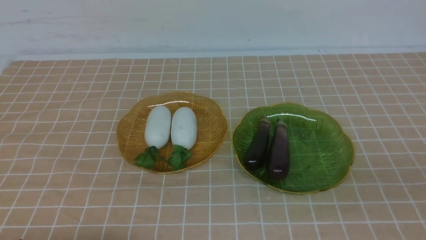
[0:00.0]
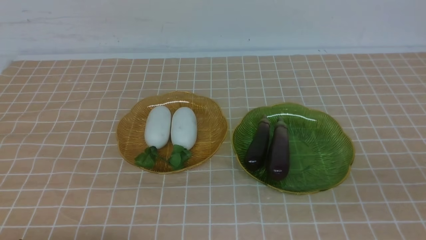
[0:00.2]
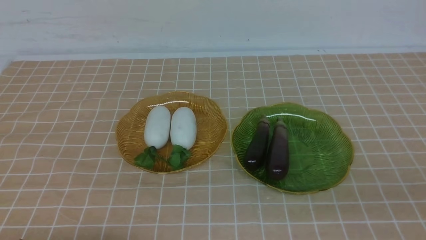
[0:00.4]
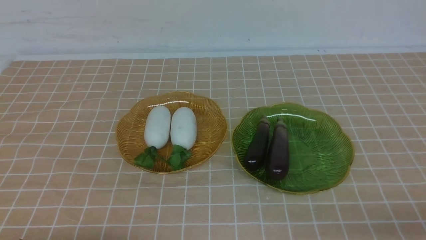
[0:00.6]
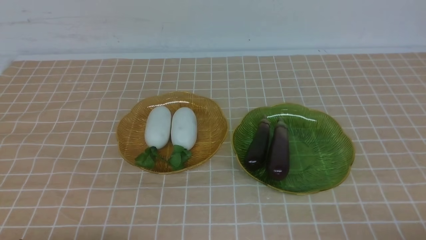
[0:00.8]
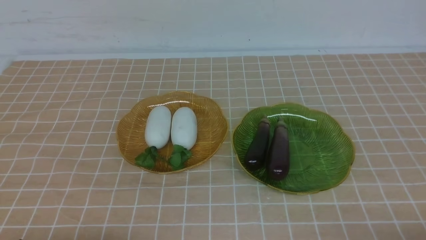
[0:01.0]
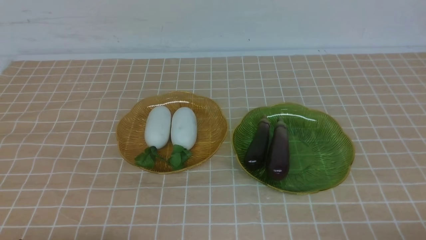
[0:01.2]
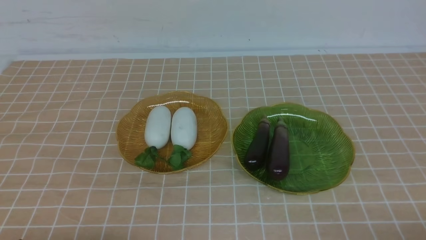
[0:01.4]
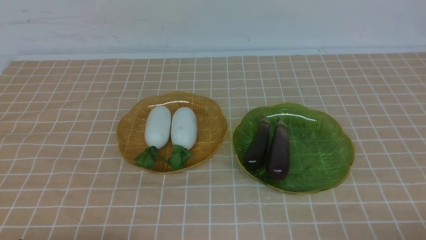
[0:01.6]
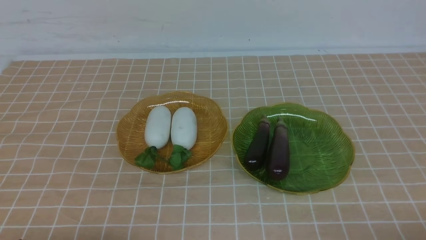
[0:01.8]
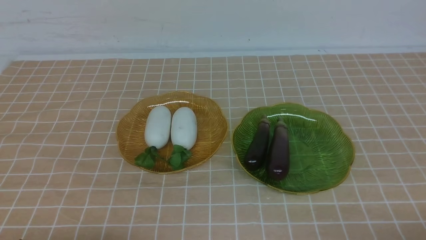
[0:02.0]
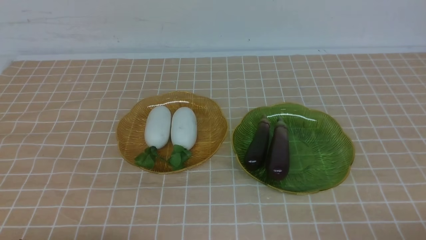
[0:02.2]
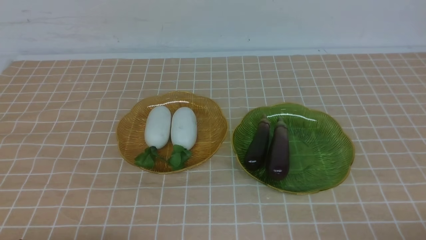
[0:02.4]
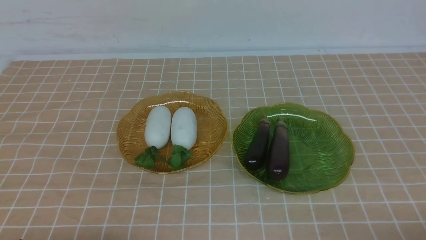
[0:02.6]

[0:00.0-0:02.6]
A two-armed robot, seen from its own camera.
1.2 to 2.6 s: Both grippers stay about where they are.

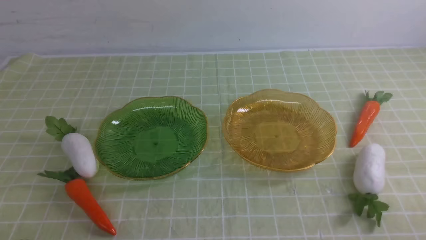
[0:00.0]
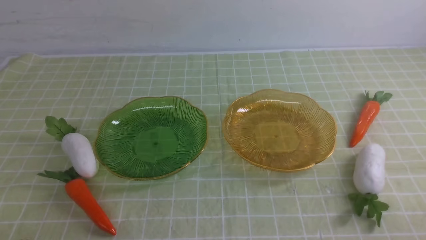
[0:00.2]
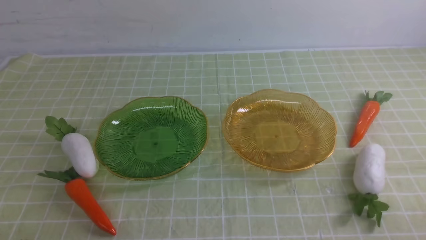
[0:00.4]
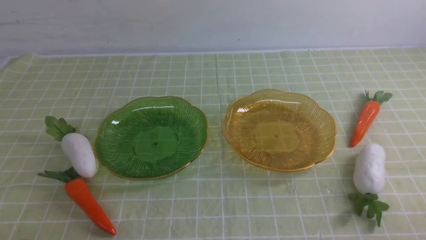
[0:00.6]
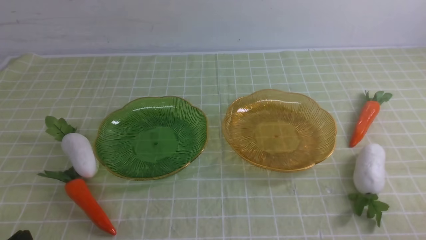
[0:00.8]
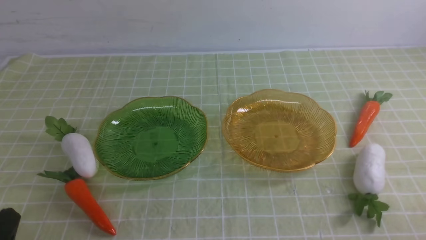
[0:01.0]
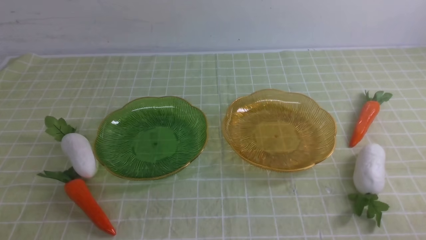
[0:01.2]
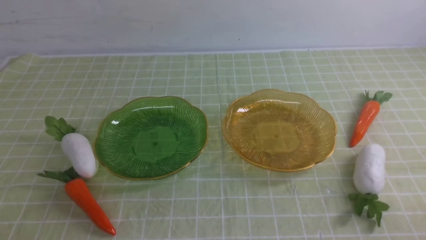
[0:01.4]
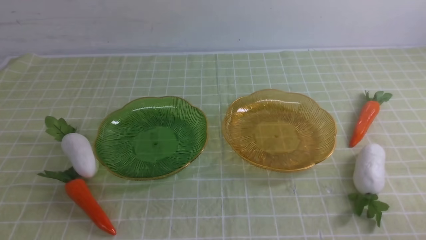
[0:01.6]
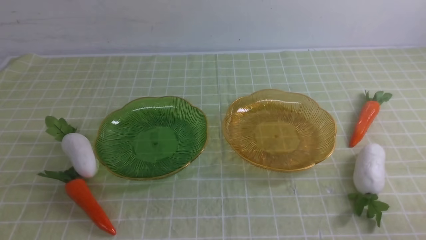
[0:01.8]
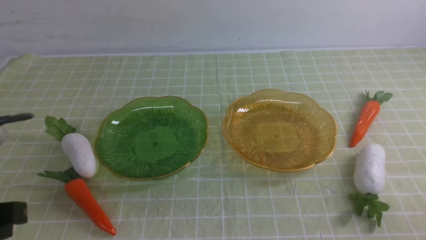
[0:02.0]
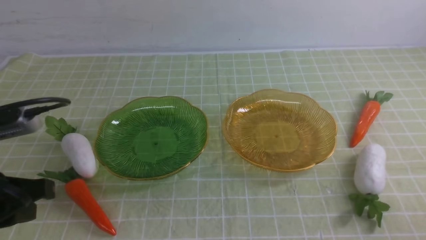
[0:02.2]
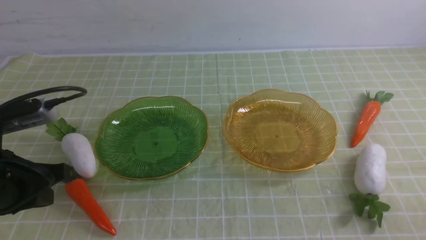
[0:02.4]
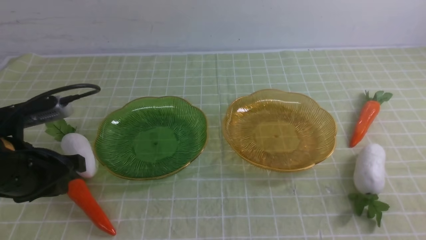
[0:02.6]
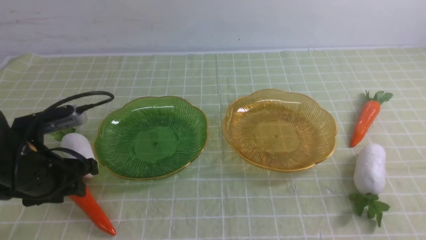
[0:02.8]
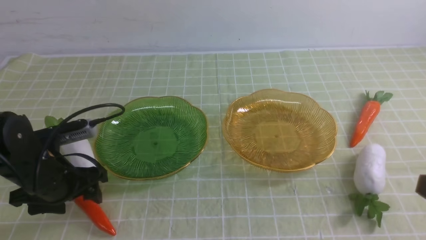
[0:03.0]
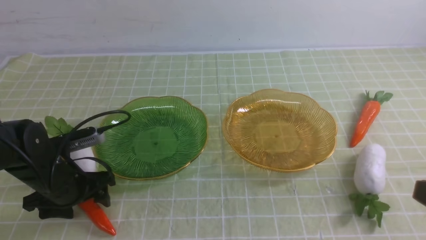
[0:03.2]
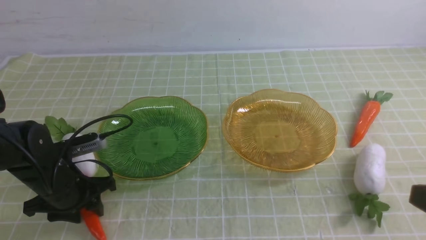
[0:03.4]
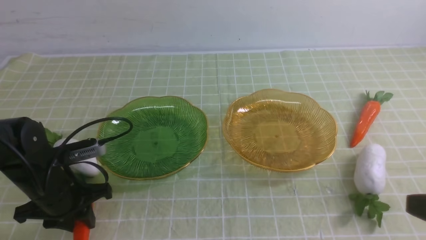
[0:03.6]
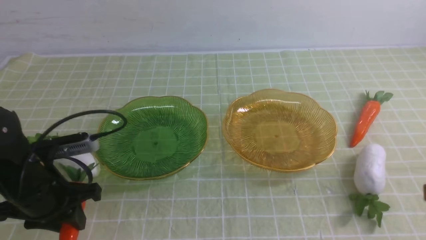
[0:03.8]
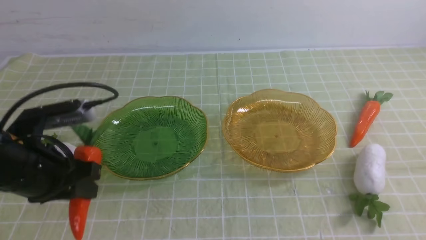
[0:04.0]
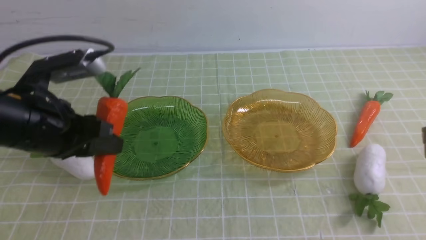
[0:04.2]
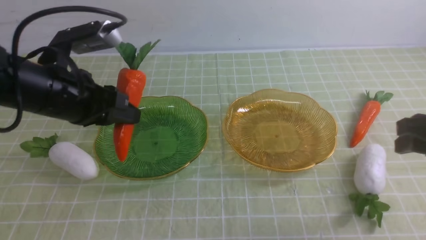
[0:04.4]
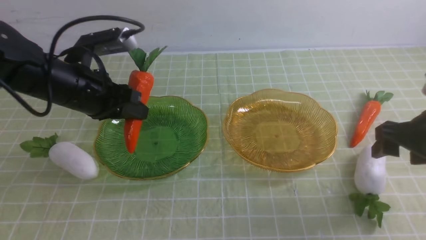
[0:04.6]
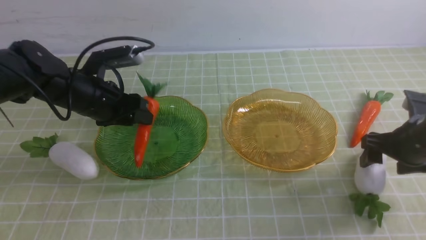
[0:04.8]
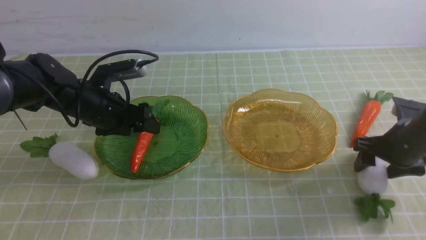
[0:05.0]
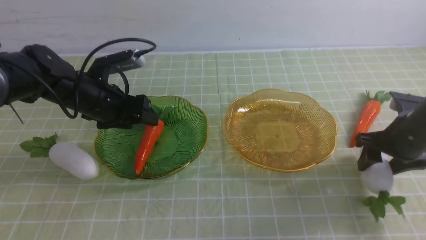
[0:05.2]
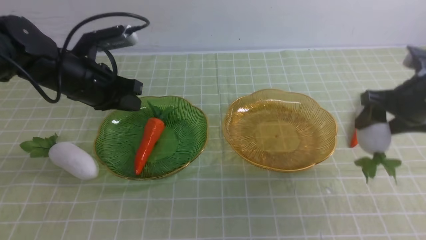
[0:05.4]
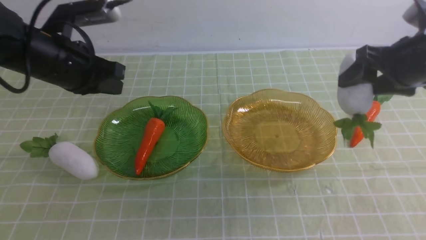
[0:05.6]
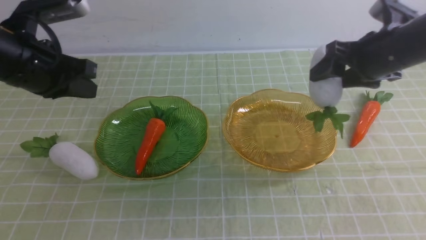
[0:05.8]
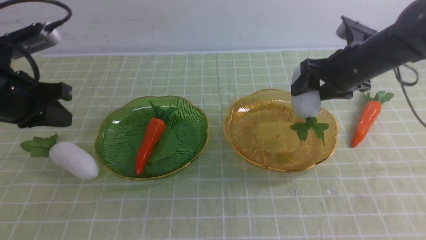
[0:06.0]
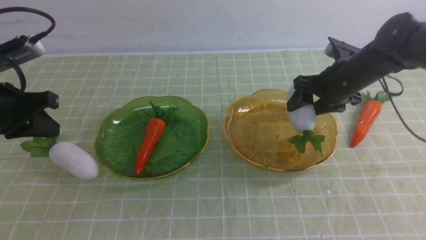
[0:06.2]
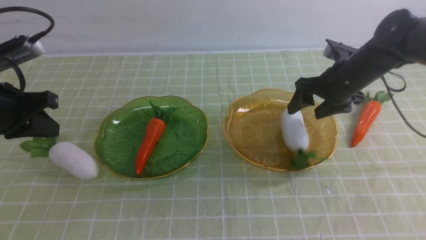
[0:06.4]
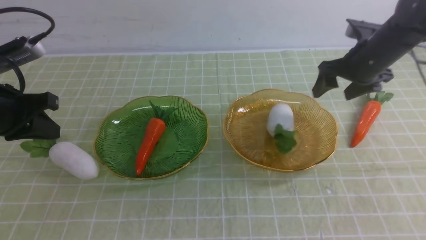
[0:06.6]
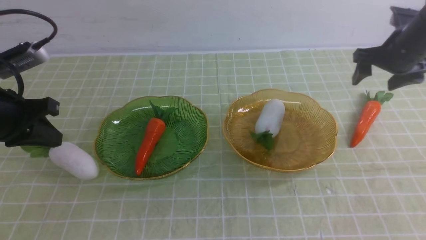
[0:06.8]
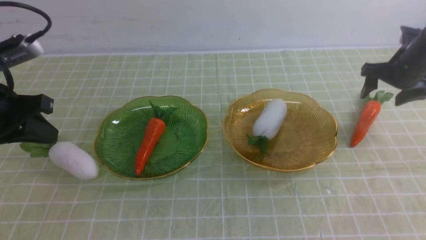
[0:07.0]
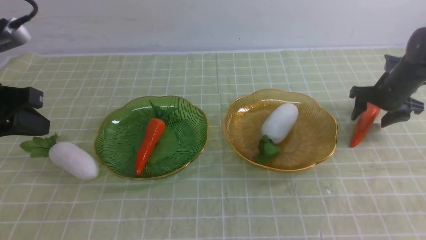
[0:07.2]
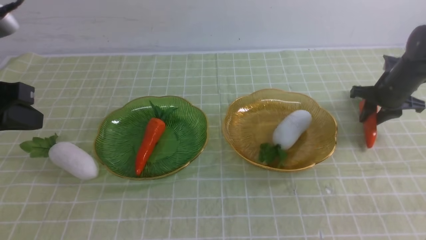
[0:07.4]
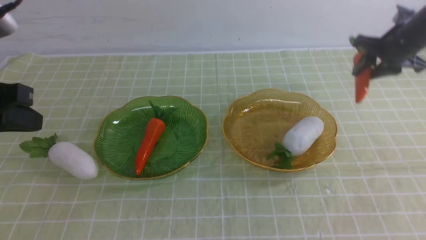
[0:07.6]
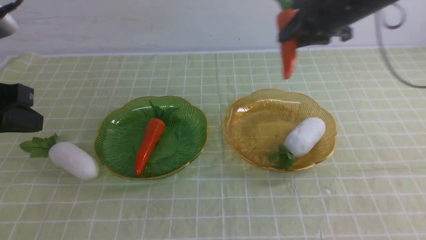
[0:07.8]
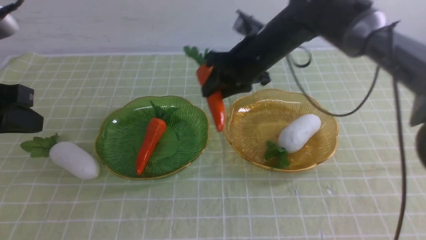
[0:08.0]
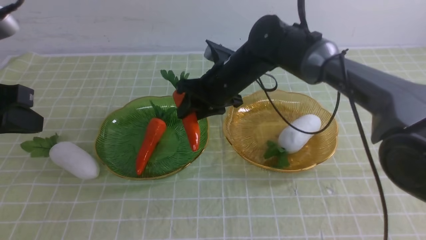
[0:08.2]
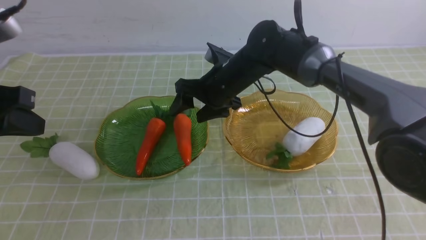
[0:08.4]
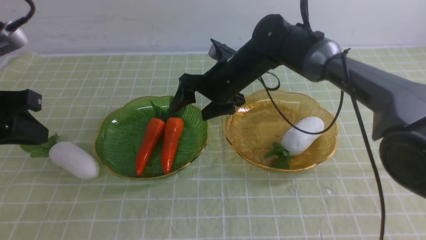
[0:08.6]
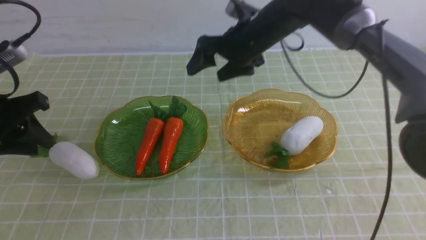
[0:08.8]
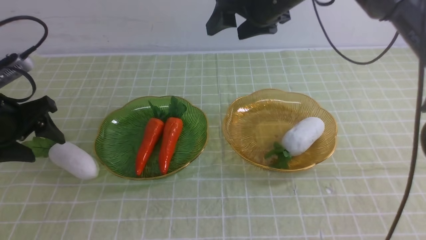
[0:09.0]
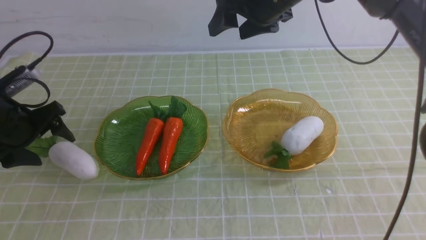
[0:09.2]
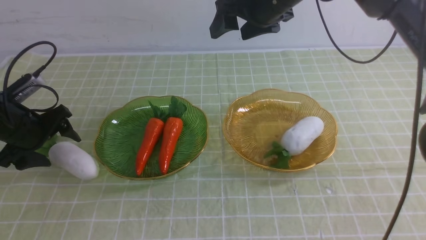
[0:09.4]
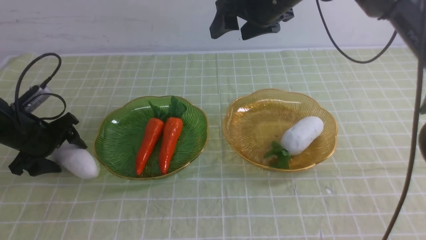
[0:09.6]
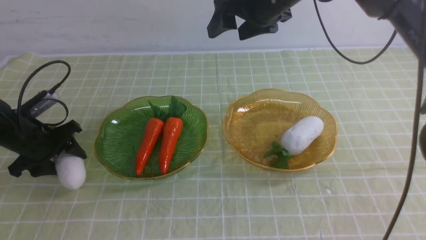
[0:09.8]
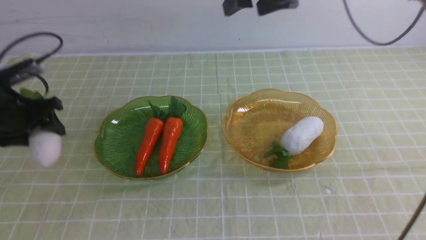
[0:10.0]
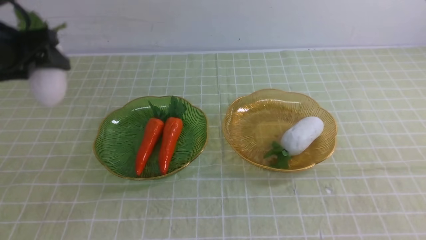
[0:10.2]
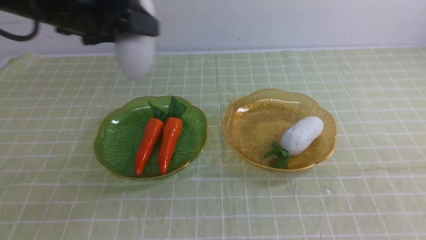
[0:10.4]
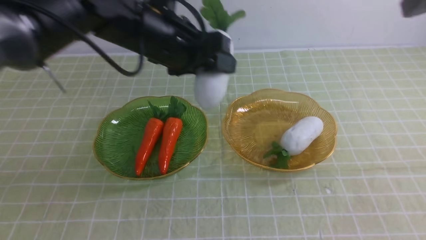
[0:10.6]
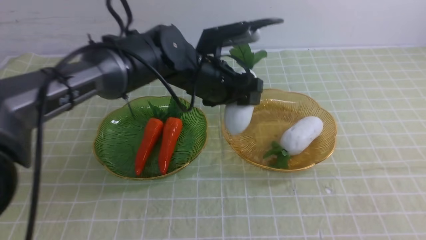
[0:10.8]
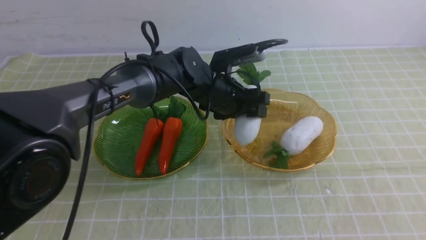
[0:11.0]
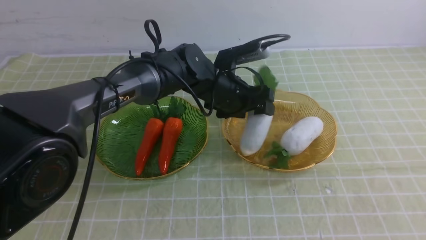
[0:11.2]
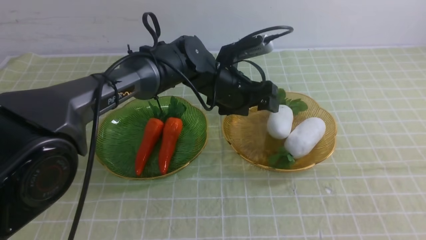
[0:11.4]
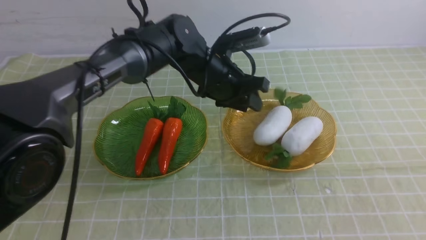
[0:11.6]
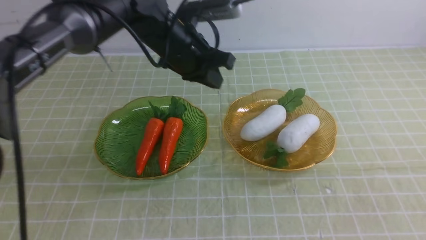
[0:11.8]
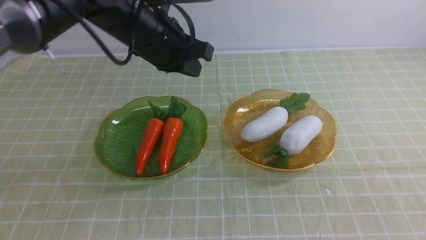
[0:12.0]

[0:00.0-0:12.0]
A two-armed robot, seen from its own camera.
Step, 0.0 to 5.2 s: use the left arm to grab a carrot and put it into the left plate.
Step, 5.4 to 6.6 s: use the right arm to grab a radish and put it into the right plate.
Step, 6.8 to 8.4 s: use the right arm to grab a carrot and put it into the left plate.
Step, 8.6 to 11.4 s: use the left arm to grab a radish and put it into the right plate.
1.6 to 3.0 s: The left gripper travels forward and downward by about 25 cm, and opens up.
3.0 to 4.4 s: The left gripper travels upward by about 10 cm, and closes. The right gripper heads forward, covering roughly 15 cm, and opens.
4.4 to 6.0 s: The left gripper moves to the left, about 5 cm, reaches approximately 10 cm forward, then returns, and closes its fingers, while the right gripper travels forward and to the left by roughly 20 cm.
6.0 to 7.6 s: The left gripper travels backward by roughly 10 cm, while the right gripper moves forward and to the right, some 10 cm.
7.6 to 9.0 s: The right gripper is displaced to the left and upward by about 25 cm, and opens its fingers. Meanwhile the left gripper travels downward and forward by about 10 cm, and opens up.
9.0 to 10.4 s: The left gripper goes approximately 15 cm to the right, upward and forward. Meanwhile the right gripper travels upward, to the right and backward by roughly 20 cm, and closes up.
10.4 to 12.0 s: The right gripper moves backward, about 35 cm, and closes; the left gripper moves to the right, some 15 cm, and closes.

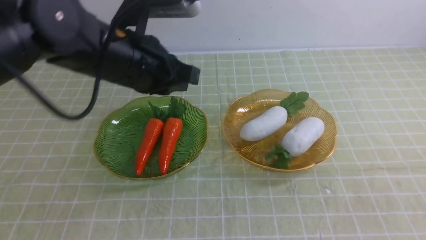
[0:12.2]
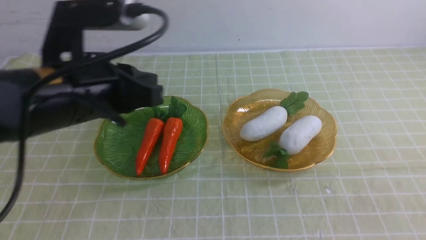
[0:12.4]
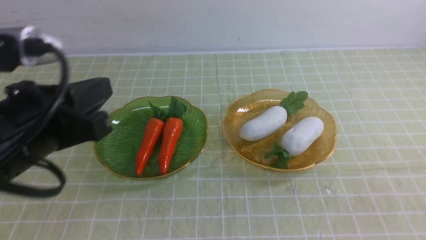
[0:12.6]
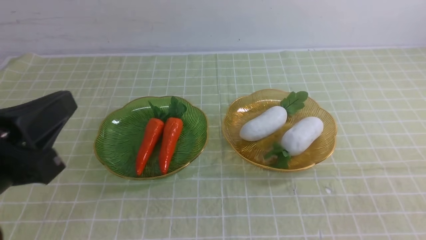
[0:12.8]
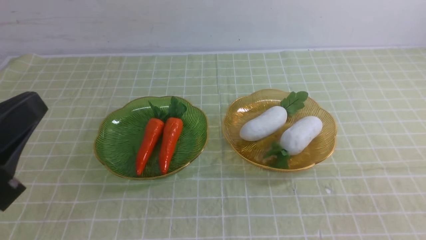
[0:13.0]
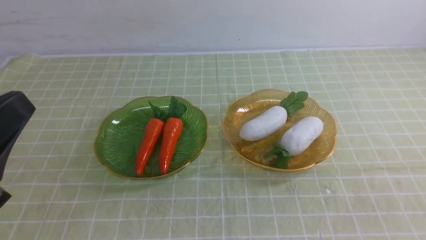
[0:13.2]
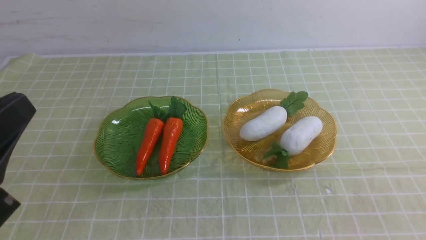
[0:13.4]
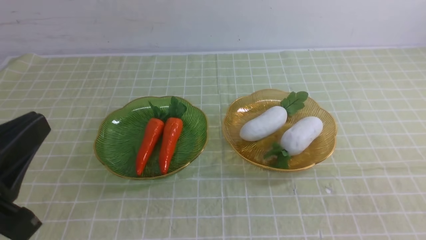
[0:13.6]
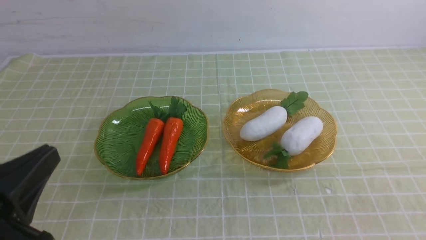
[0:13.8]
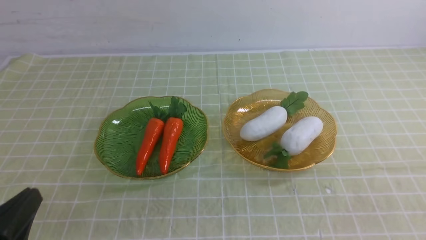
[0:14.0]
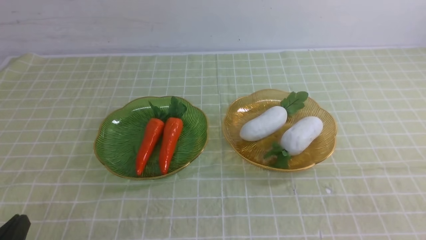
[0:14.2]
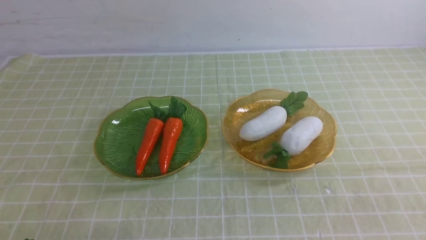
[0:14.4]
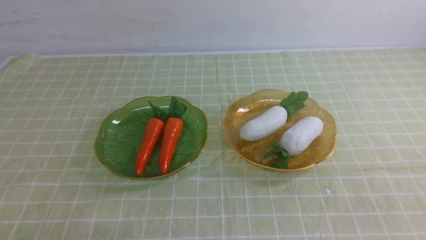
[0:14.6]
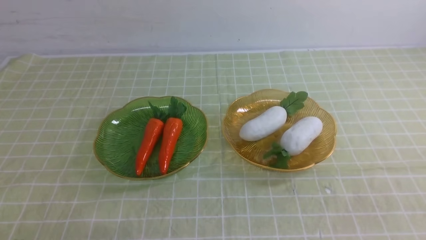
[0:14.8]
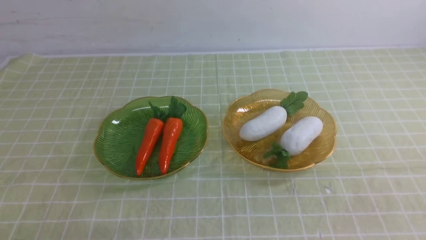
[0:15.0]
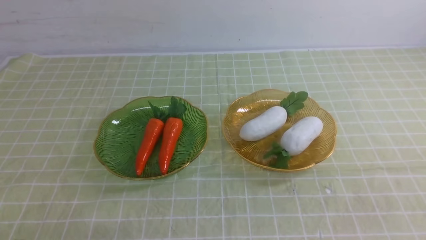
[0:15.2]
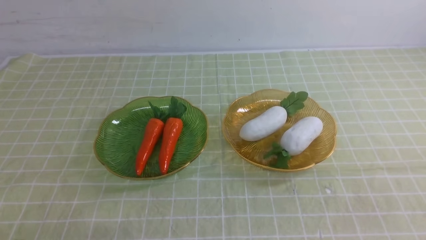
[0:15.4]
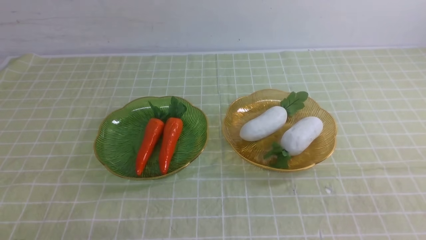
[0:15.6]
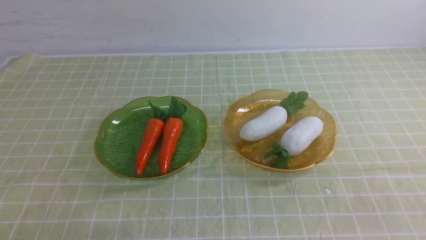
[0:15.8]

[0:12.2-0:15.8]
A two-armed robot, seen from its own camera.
12.2 to 14.0 s: The left gripper goes about 30 cm backward and to the left.
14.0 to 15.8 s: The left gripper goes roughly 10 cm downward.
